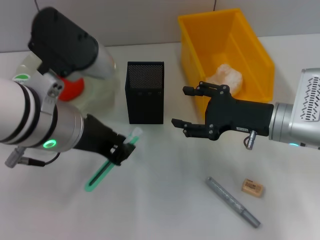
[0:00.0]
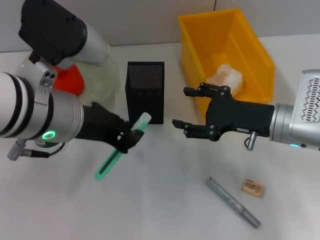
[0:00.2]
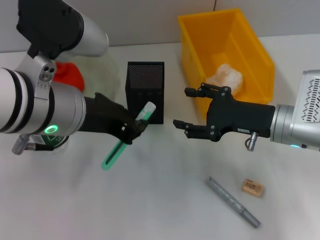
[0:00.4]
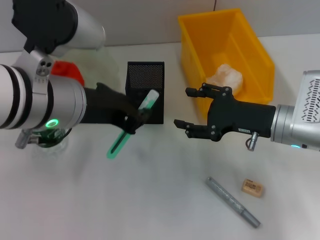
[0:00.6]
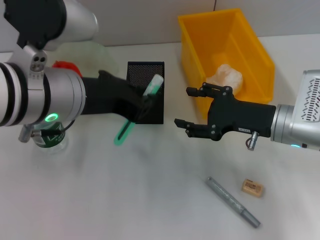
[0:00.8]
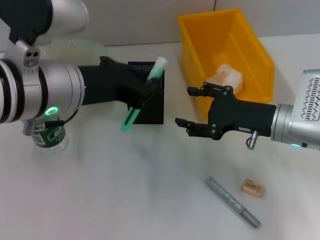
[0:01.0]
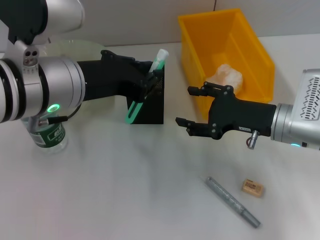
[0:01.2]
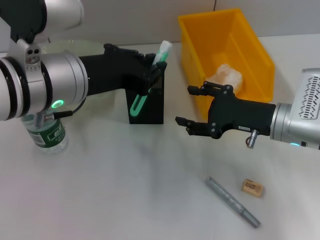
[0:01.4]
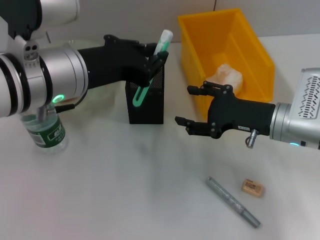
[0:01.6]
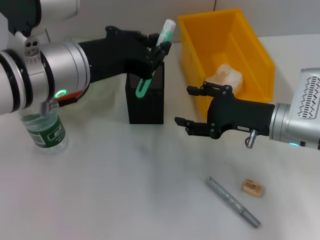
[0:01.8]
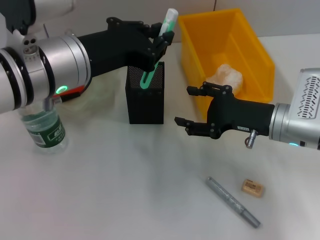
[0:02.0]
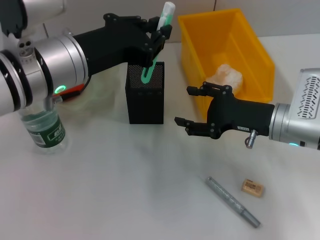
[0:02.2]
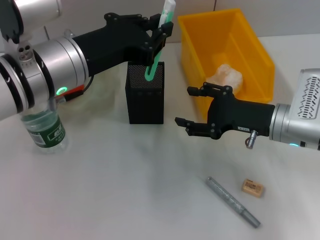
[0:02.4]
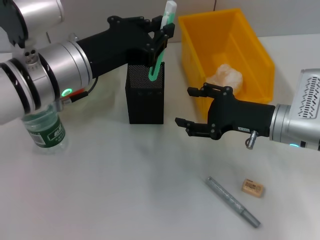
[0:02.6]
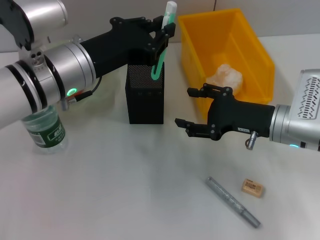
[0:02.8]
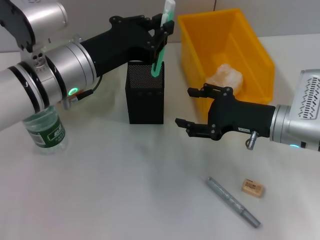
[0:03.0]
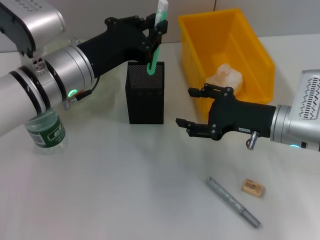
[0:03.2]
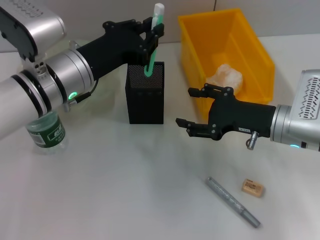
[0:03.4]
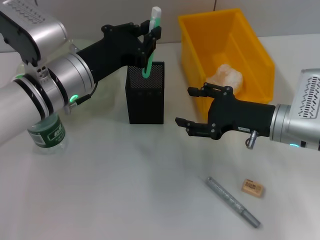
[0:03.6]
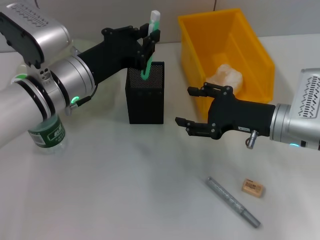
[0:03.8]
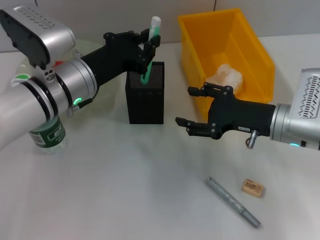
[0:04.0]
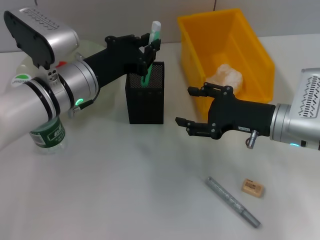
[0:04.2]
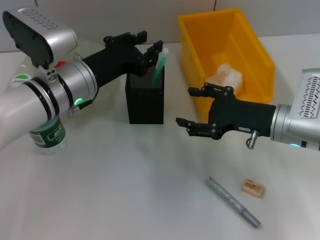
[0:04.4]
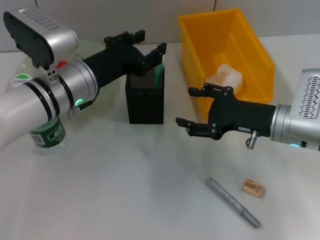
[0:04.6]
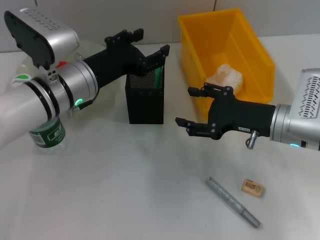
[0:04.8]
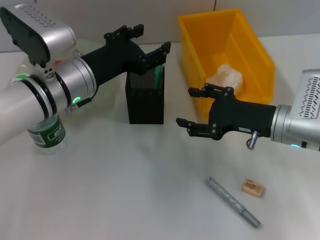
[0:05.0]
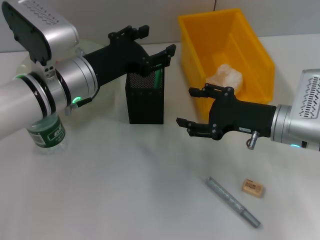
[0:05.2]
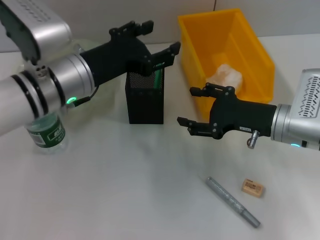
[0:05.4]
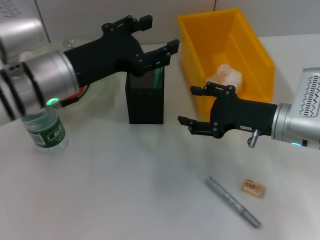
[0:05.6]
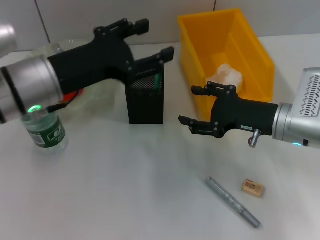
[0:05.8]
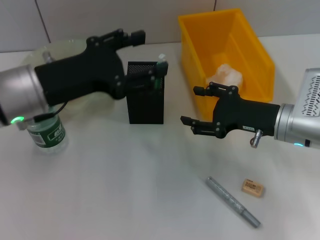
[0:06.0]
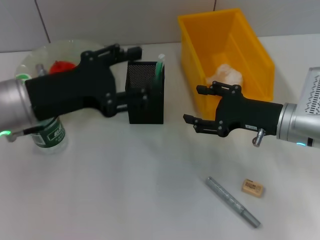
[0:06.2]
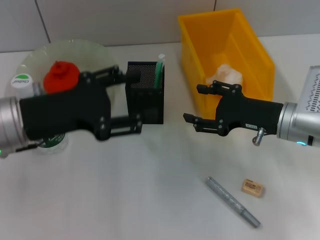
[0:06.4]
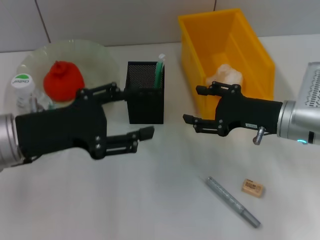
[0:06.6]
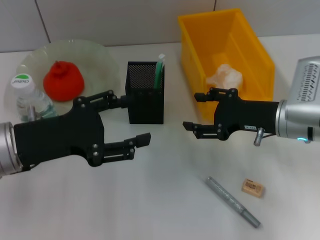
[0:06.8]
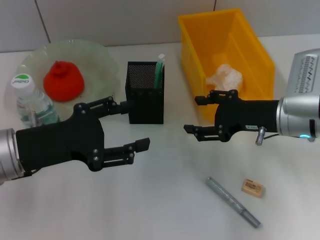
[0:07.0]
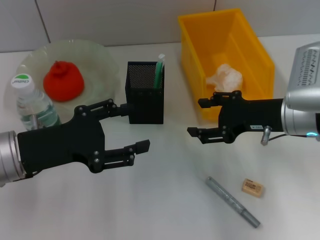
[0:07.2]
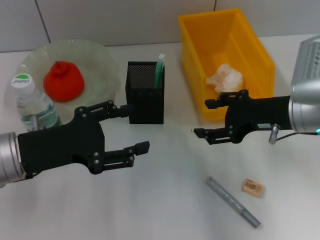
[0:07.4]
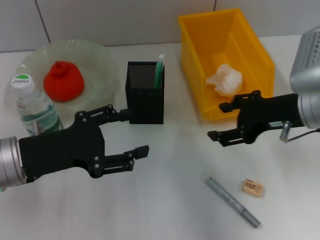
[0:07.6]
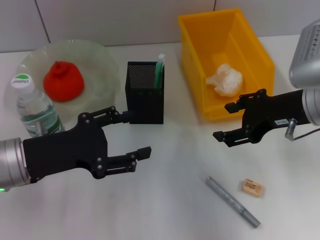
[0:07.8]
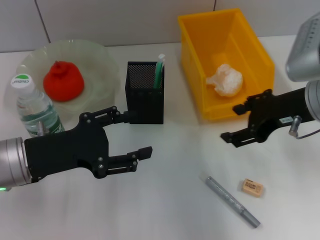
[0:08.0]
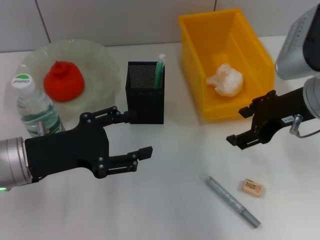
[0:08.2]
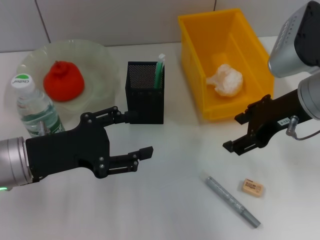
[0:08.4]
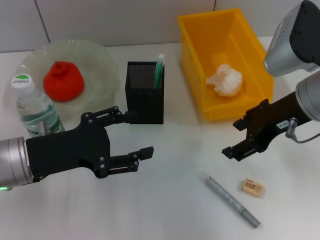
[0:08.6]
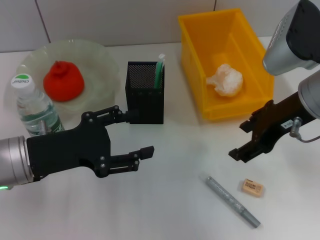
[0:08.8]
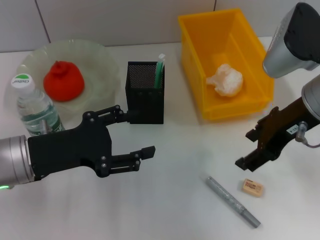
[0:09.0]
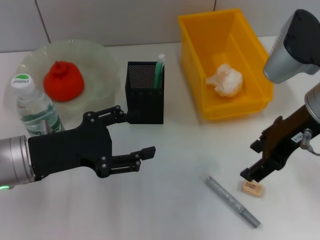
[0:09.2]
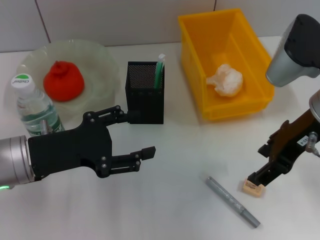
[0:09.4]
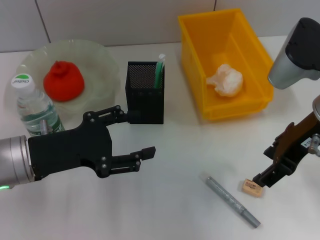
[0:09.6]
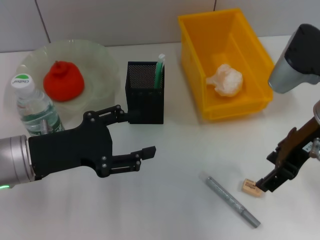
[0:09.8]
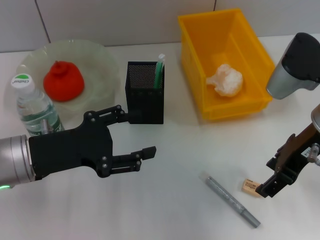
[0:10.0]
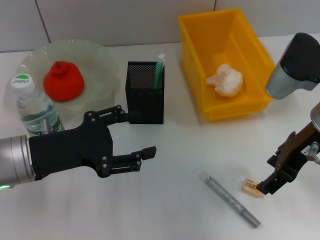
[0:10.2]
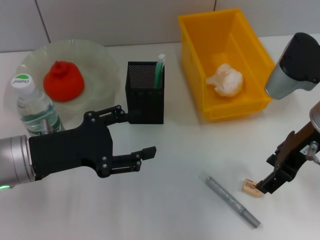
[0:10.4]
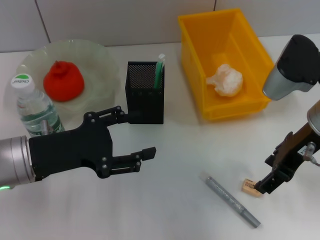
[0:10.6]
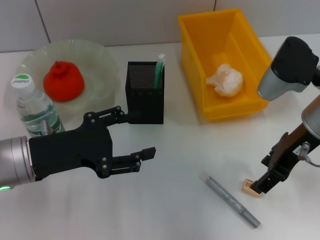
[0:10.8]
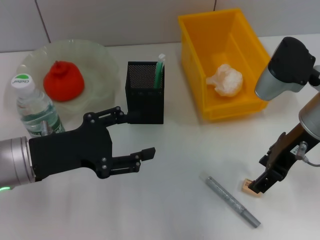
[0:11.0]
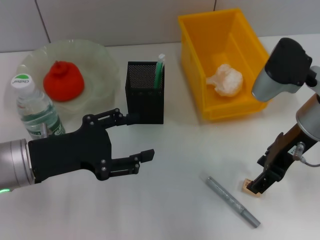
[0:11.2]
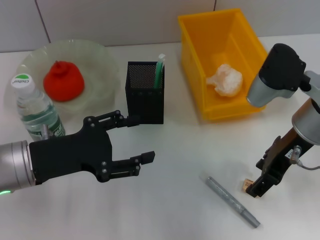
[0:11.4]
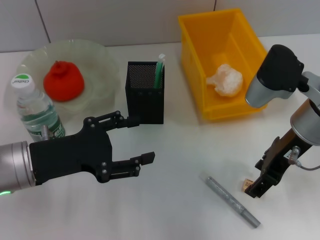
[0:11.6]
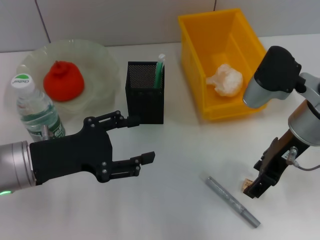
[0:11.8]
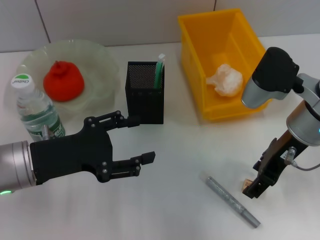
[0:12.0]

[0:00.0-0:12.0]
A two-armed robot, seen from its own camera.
Step, 0:00.0 to 0:04.8: Place the blue utility knife into the pen holder with the left hand.
0:01.6 to 0:03.0: The left gripper changes place by roughly 5 cm.
0:03.0 to 0:04.4: The left gripper shifts by about 5 cm.
0:04.4 to 0:06.0: The left gripper moves upward and backward, about 5 cm, and opens.
0:06.0 to 0:07.6: The right gripper heads upward, covering about 10 cm. The left gripper travels downward and backward by roughly 5 cm.
0:07.6 to 0:09.0: The right gripper shifts by about 5 cm.
0:09.0 to 0:12.0: The grippers move only a little.

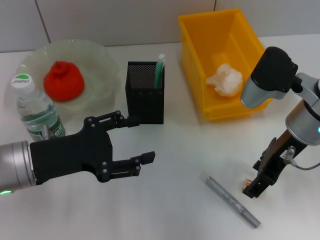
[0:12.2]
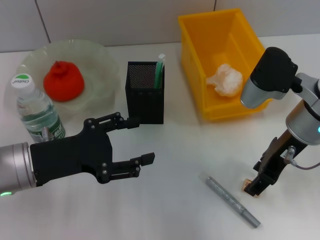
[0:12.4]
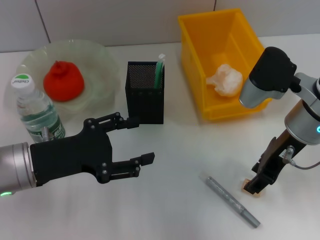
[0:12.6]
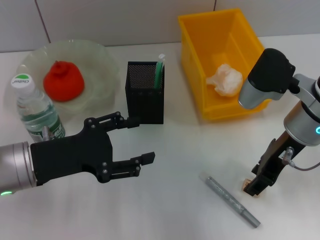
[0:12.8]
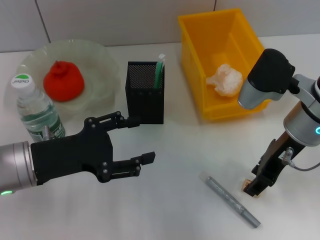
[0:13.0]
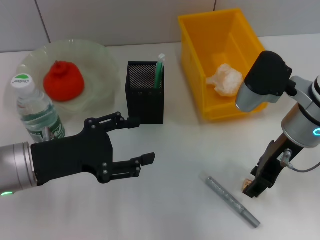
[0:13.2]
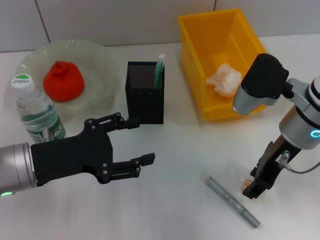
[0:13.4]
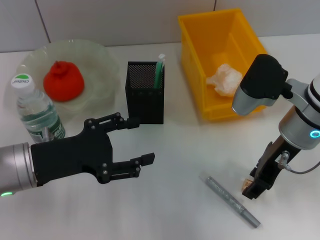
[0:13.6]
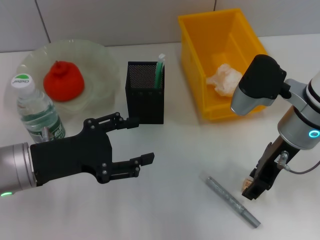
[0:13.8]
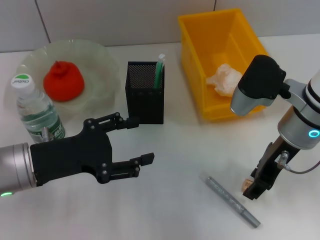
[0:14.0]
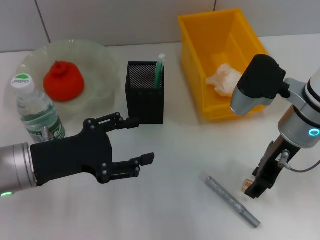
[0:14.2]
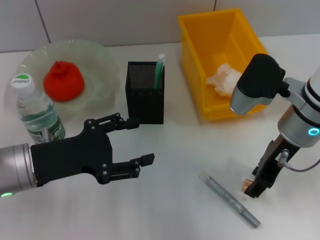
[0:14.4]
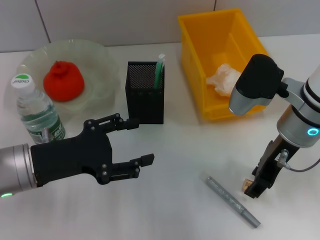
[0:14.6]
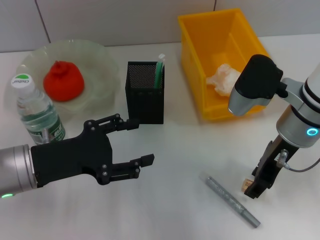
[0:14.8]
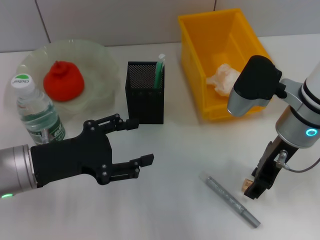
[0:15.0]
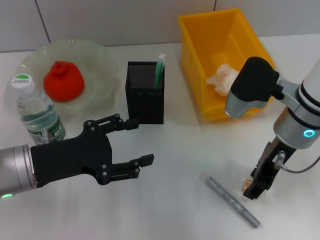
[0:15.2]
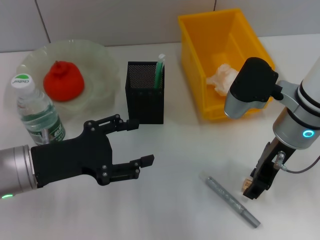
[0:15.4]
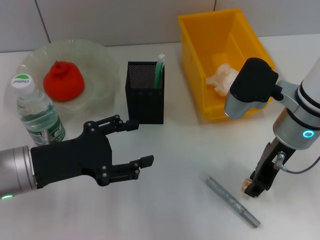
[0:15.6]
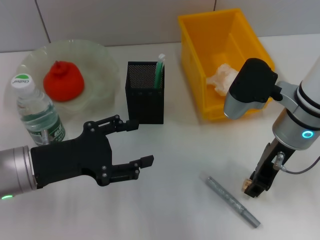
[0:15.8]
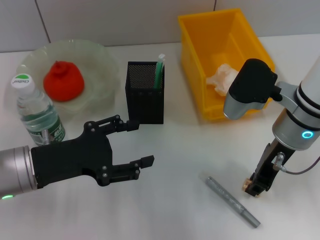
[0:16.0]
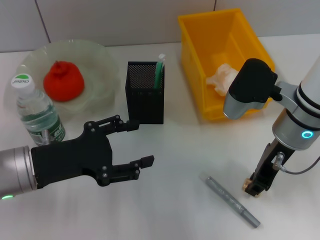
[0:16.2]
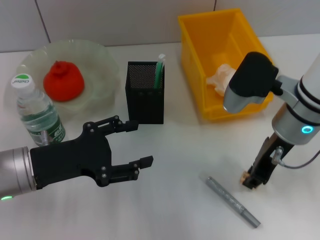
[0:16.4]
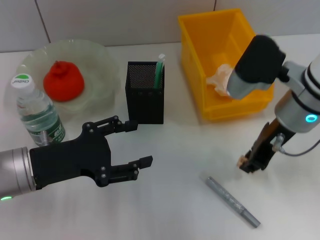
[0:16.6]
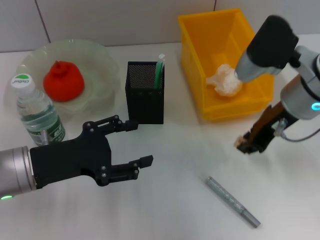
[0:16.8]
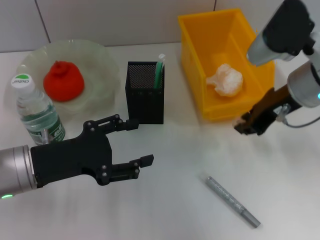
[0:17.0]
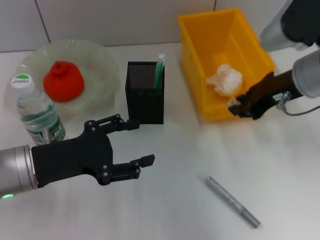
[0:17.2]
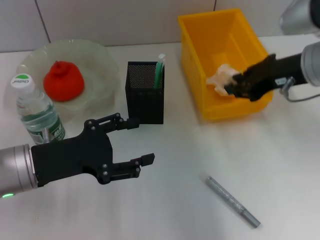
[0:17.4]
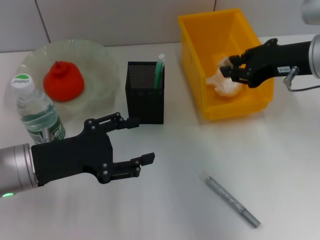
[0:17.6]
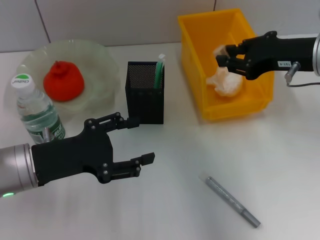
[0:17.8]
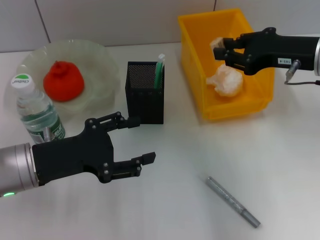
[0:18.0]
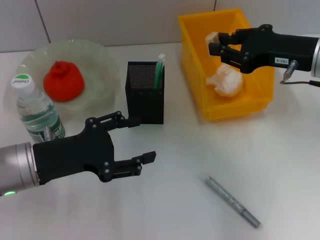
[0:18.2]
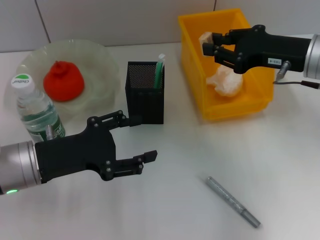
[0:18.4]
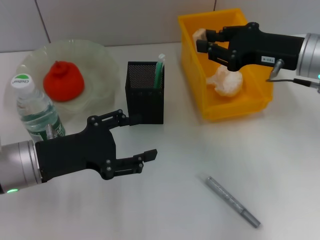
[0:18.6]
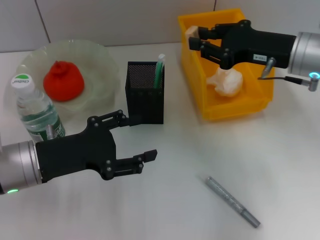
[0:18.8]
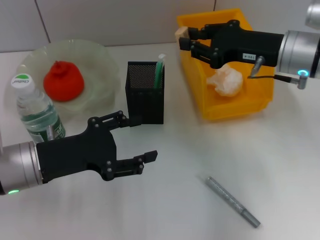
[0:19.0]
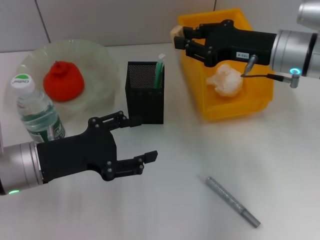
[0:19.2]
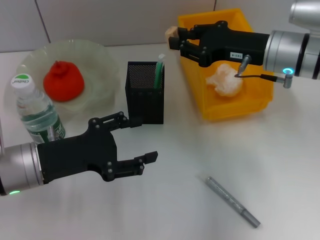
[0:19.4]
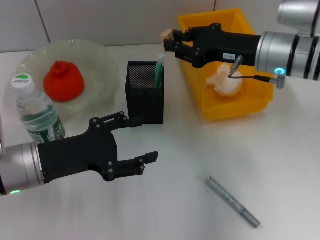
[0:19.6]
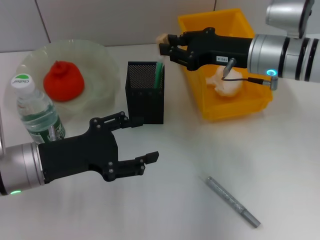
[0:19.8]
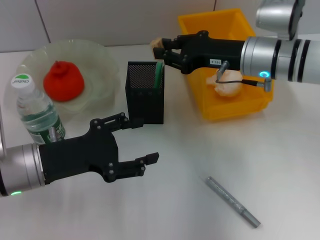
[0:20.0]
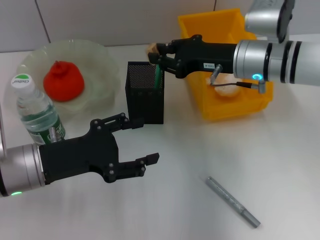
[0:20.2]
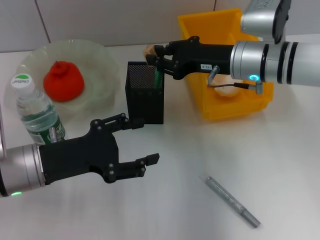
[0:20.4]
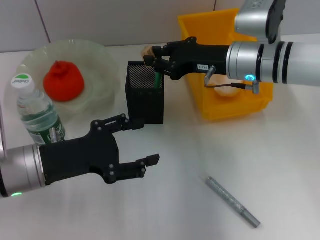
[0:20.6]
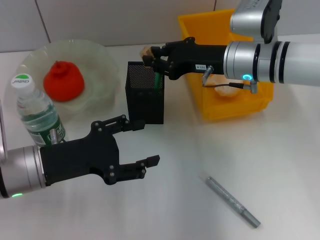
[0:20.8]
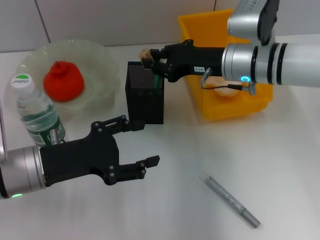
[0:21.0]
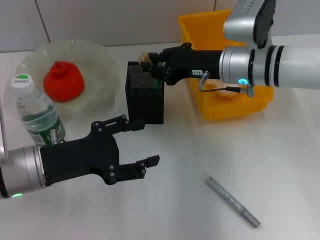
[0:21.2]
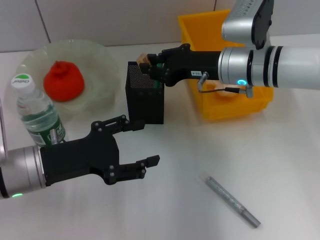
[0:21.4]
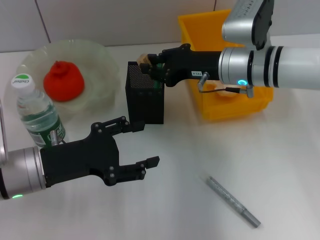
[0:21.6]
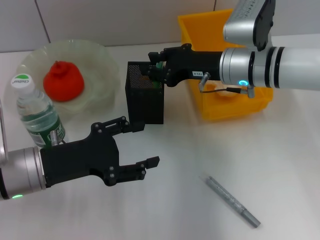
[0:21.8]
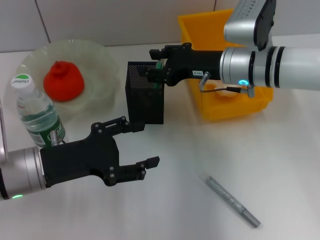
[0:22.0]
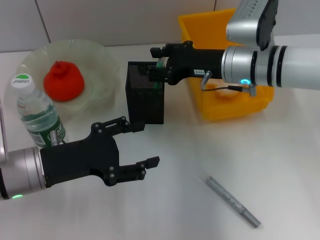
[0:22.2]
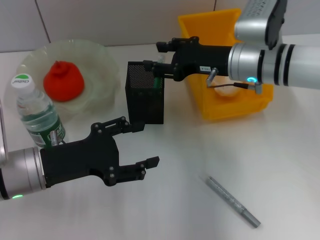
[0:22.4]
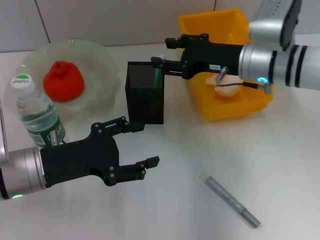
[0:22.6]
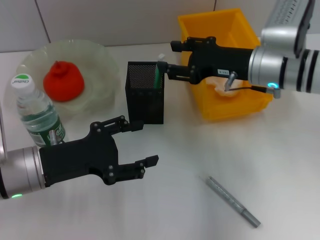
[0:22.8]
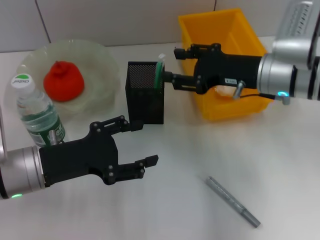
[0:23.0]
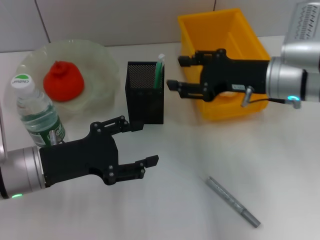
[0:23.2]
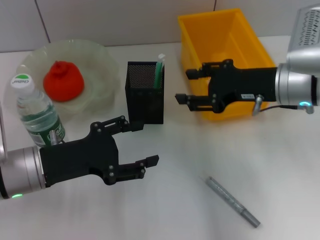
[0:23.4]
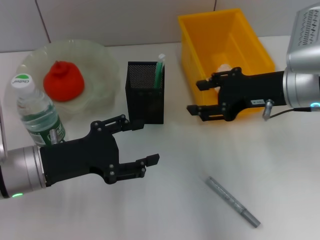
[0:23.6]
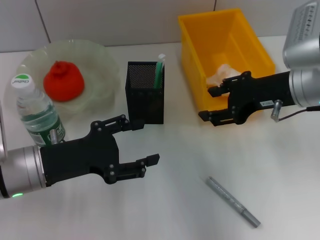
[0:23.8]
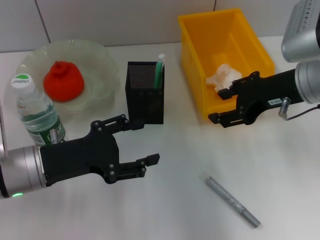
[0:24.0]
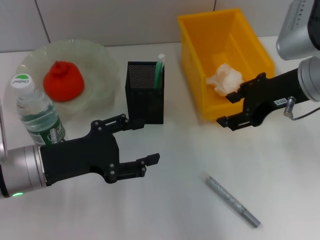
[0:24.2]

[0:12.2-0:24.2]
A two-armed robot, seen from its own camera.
Step, 0:12.2 to 0:15.2: Grab the eraser with the right hand.
Step, 0:15.4 to 0:22.2: Put the eraser into the pen holder with the right hand.
0:12.2 to 0:13.8: Neither gripper changes place.
0:13.8 to 0:15.2: Both grippers stay about where they are.
0:15.2 to 0:16.6: The right gripper closes.
0:16.6 to 0:18.2: The right gripper shifts approximately 5 cm to the right.
0:18.2 to 0:19.8: The right gripper is displaced to the left and forward by some 10 cm.
0:19.8 to 0:22.6: The grippers move only a little.
0:22.6 to 0:24.2: The right gripper shifts approximately 10 cm upward and backward.
